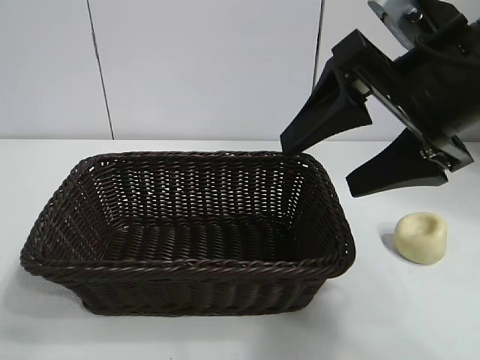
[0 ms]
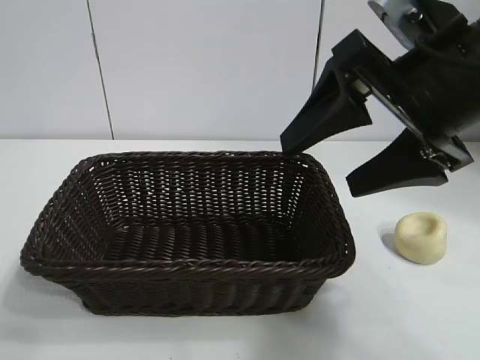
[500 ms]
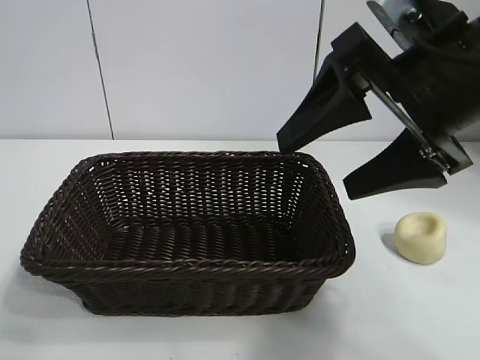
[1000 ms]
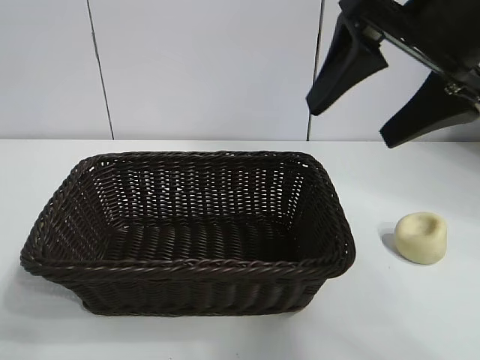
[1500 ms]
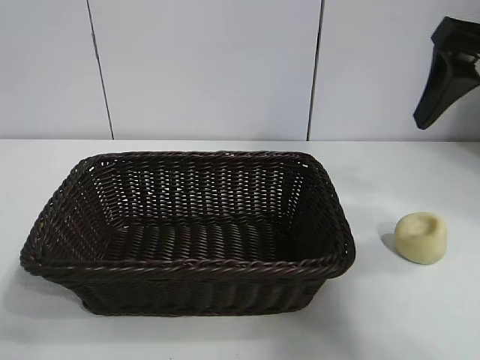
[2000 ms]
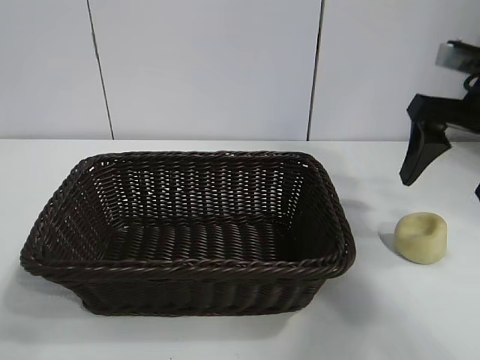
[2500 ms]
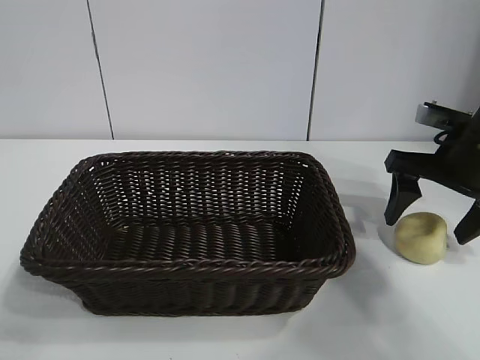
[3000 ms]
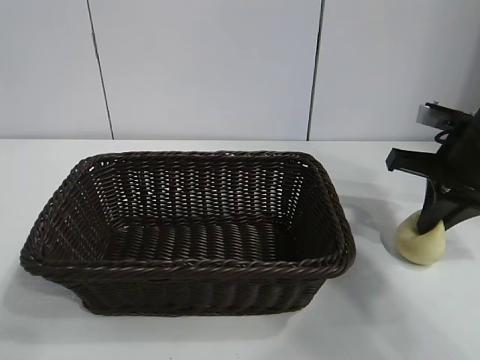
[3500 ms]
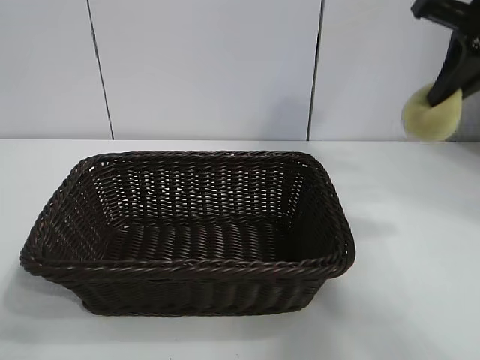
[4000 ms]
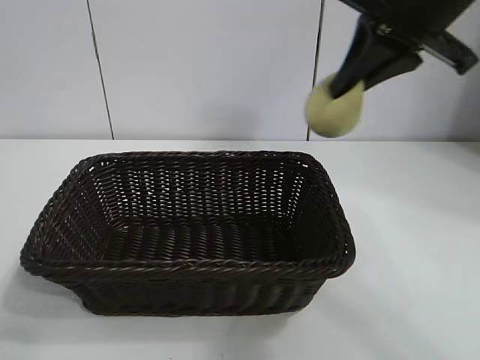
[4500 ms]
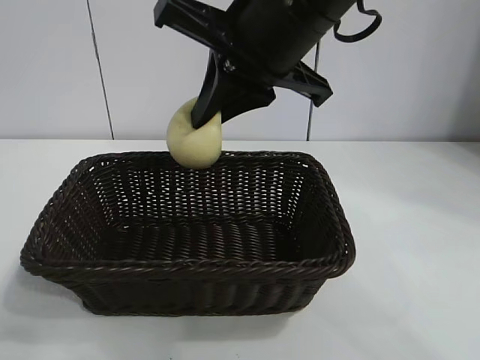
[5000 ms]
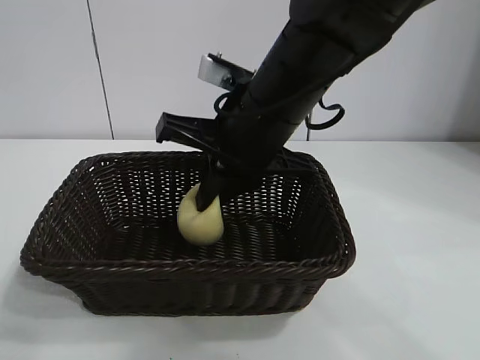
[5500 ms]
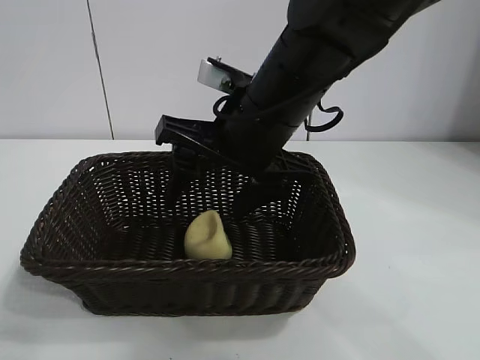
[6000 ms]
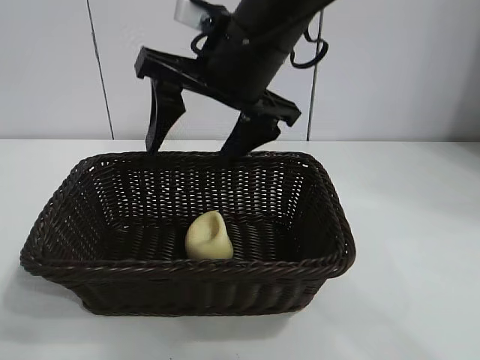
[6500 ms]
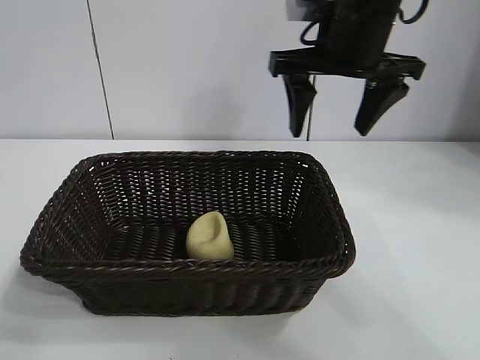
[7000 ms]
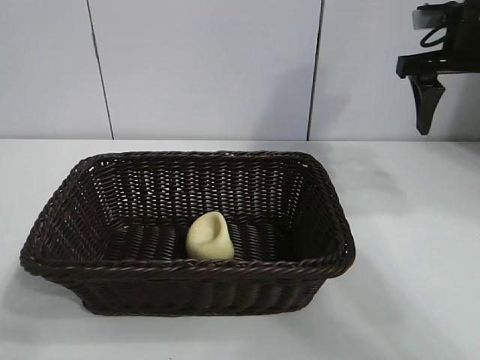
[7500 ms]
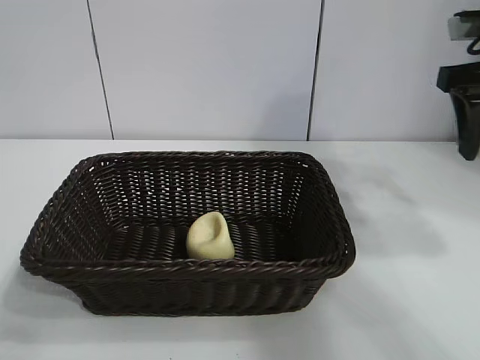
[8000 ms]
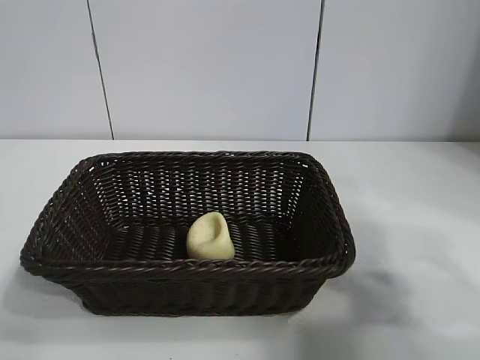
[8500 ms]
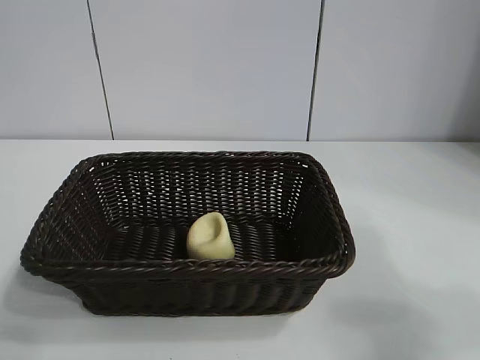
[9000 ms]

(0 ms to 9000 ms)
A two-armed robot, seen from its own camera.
Task of the whole recording: pick up the egg yolk pastry and put it into the basket.
Step, 0 ms - 3000 ms: Grasp egg yolk pastry with right gripper.
Step, 4000 ms - 6000 ms: Place the egg yolk pastry in the basket with right gripper.
